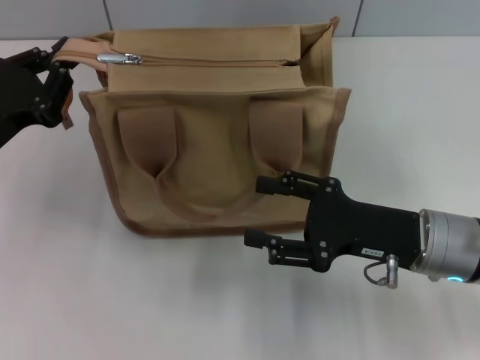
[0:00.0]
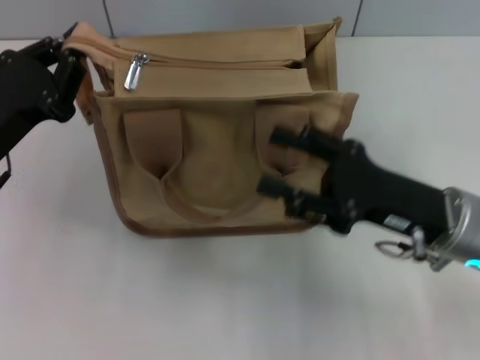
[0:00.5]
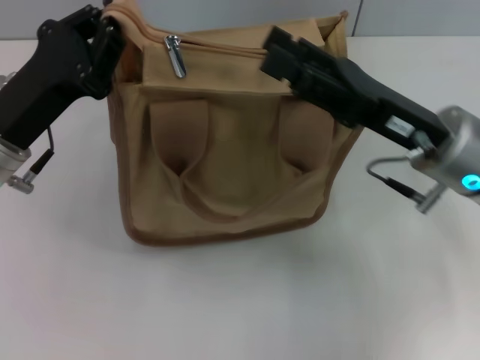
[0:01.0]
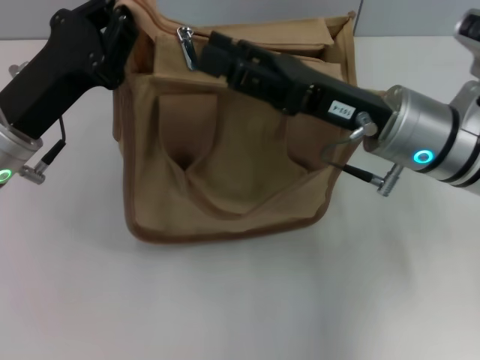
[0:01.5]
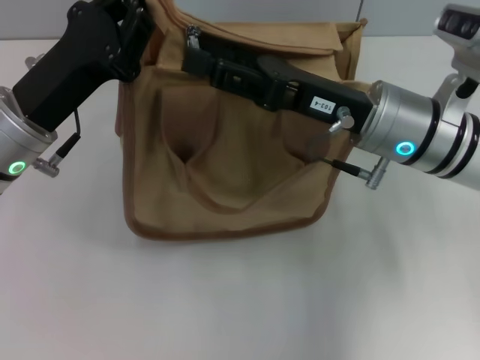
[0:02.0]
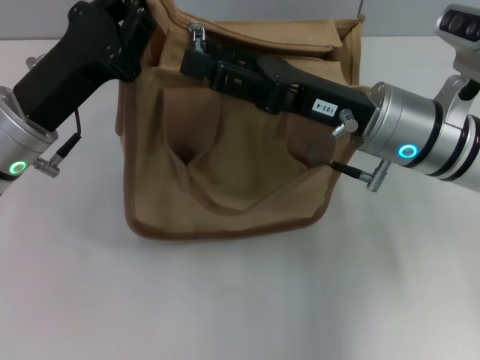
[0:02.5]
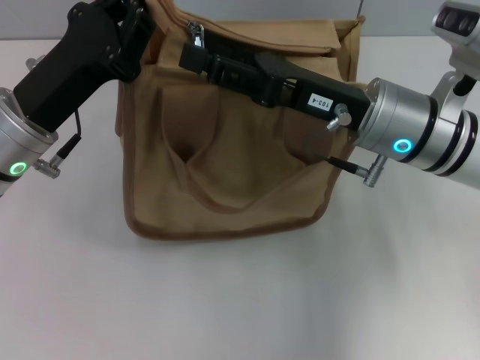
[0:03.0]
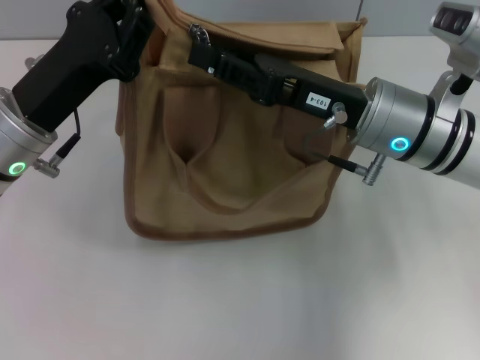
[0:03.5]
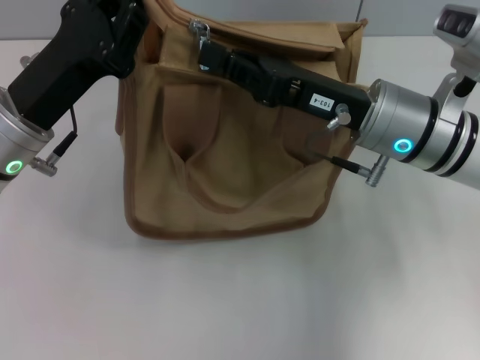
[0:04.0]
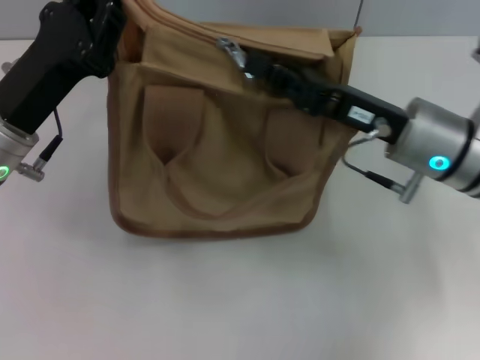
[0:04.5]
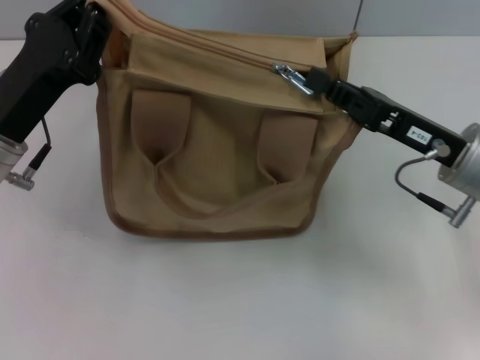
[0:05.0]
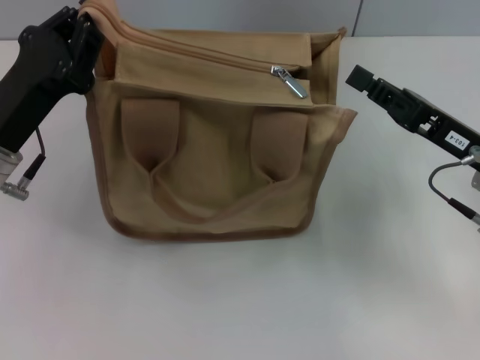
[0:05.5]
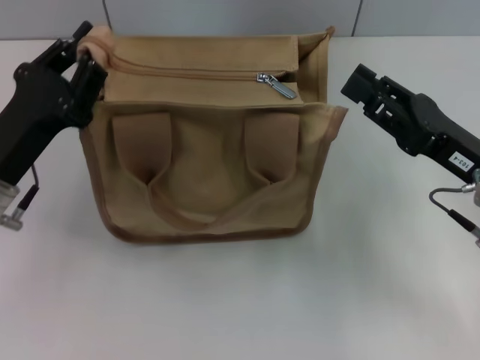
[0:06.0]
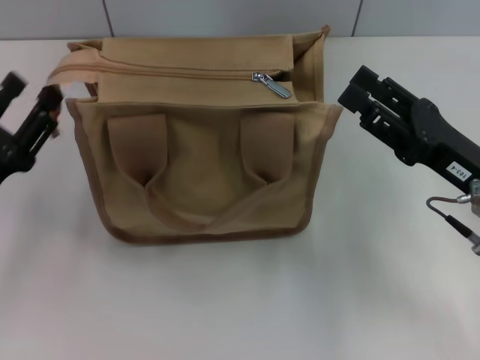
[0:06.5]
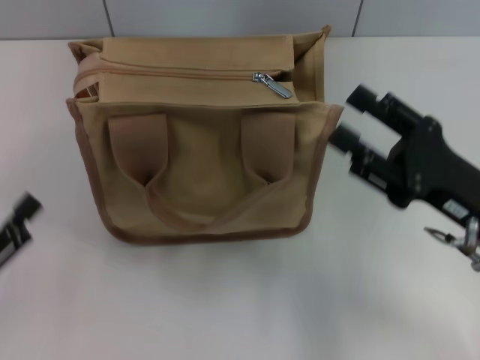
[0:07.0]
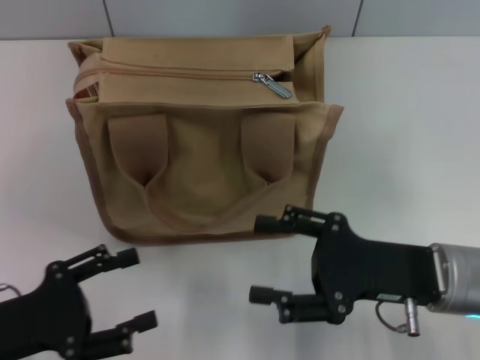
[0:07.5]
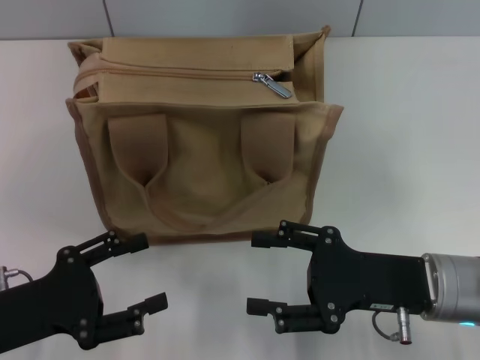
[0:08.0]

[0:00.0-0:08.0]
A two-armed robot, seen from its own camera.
Step, 0:00.0 to 0:05.0: Pull up the zipper with your right hand.
Step, 0:05.5 to 0:06.0: Grab the zipper with your left hand.
0:00.0 to 0:02.0: The right gripper travels forward, upward and to the left by roughly 10 cm, while the left gripper goes some 10 cm to the right.
0:02.0 to 0:04.0: The right gripper closes its fingers.
0:04.0 to 0:06.0: The left gripper shifts by roughly 5 cm. Meanwhile the right gripper moves to the right and backward, approximately 10 cm, and opens.
0:06.0 to 0:08.0: The right gripper shifts by some 5 cm, and opens; the left gripper moves backward, approximately 10 cm, and opens.
